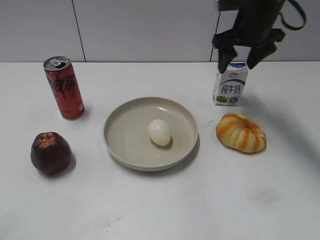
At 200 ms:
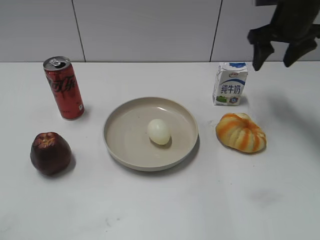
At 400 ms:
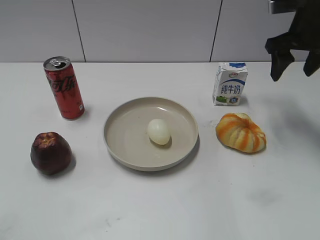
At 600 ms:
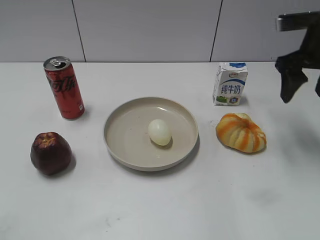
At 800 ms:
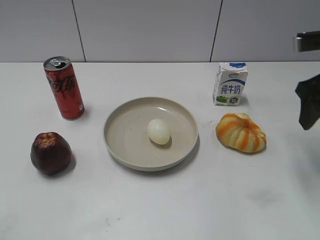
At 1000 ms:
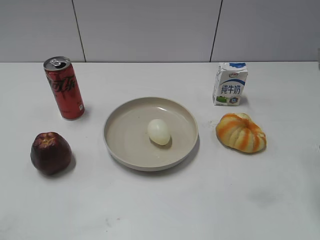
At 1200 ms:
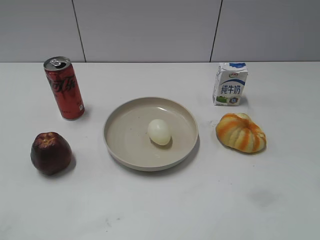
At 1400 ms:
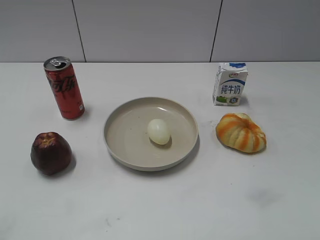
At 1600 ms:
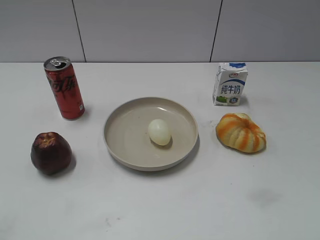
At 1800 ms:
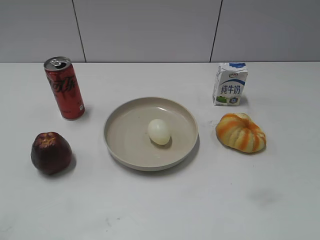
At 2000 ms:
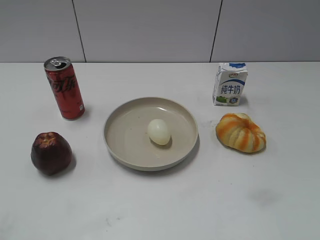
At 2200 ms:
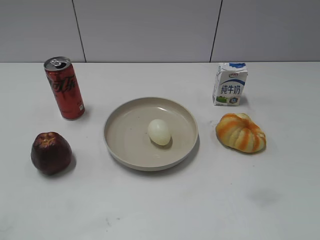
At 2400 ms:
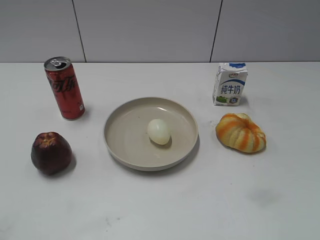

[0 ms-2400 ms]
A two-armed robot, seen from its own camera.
0 ms to 1200 ms: The right gripper goes approximately 30 cm backward and to the right.
